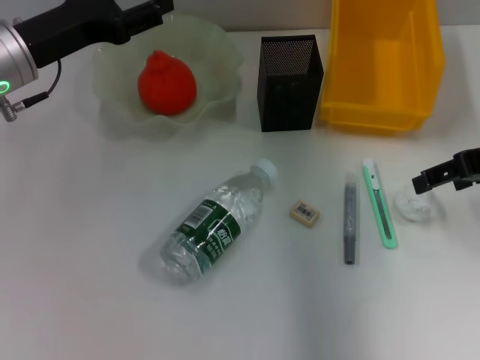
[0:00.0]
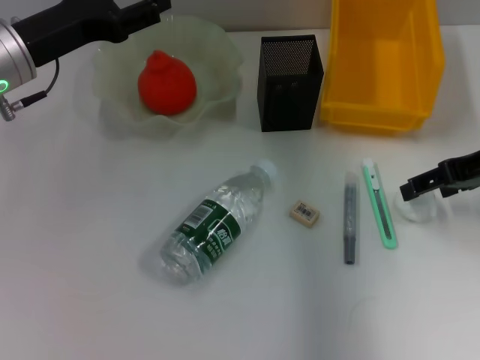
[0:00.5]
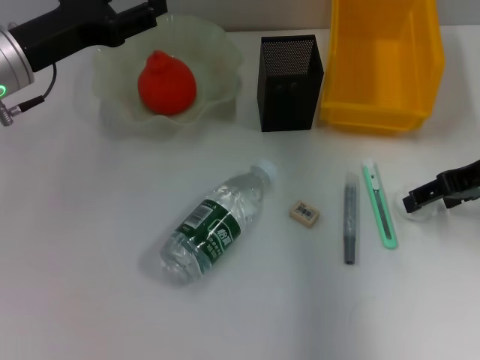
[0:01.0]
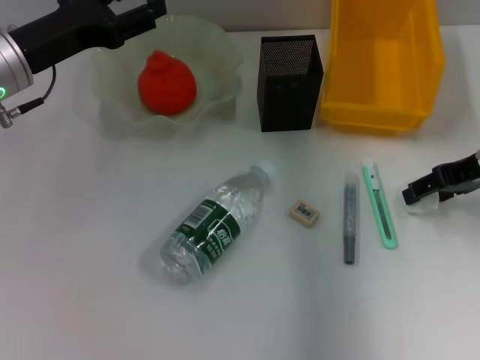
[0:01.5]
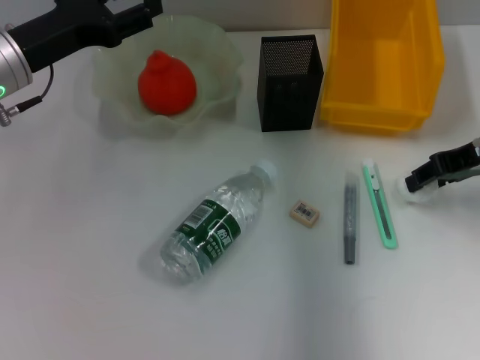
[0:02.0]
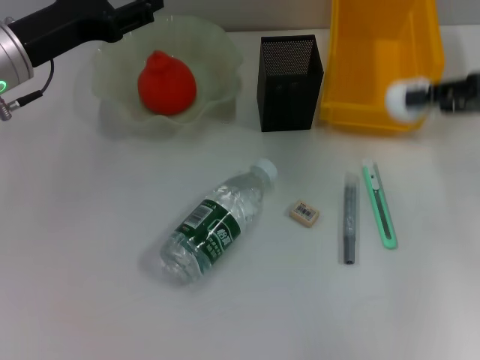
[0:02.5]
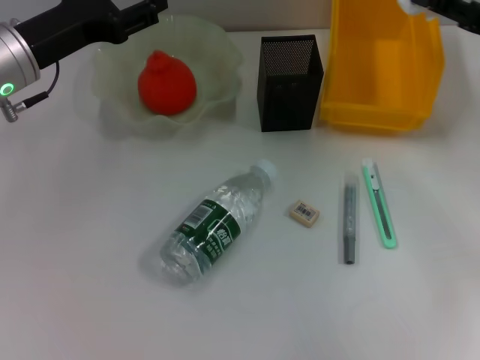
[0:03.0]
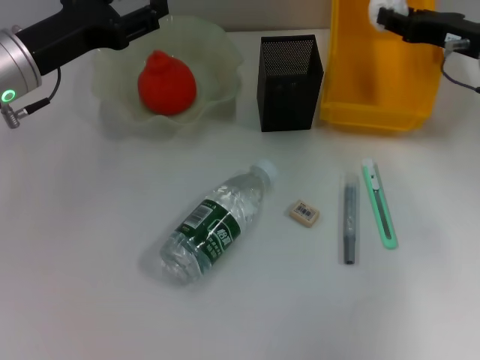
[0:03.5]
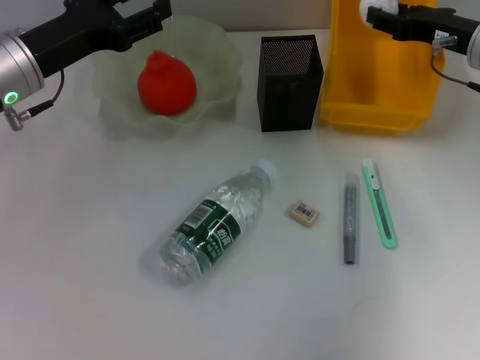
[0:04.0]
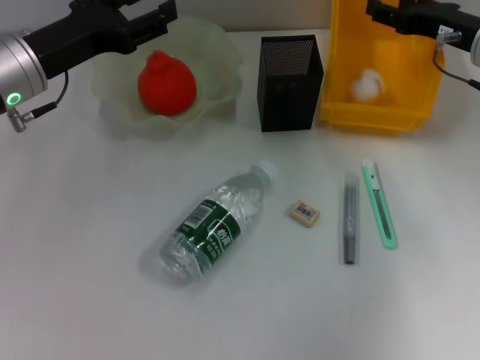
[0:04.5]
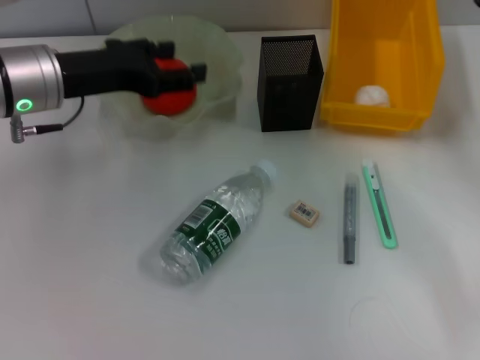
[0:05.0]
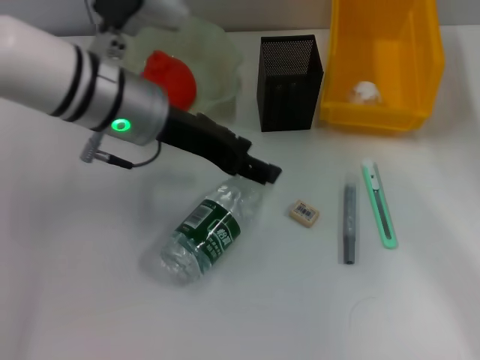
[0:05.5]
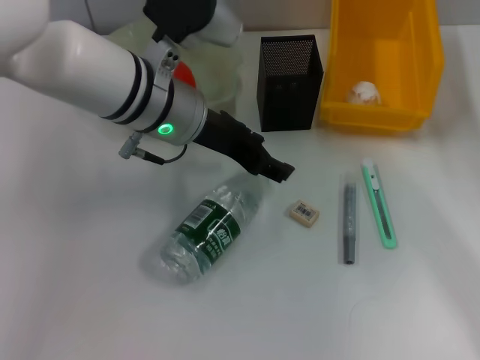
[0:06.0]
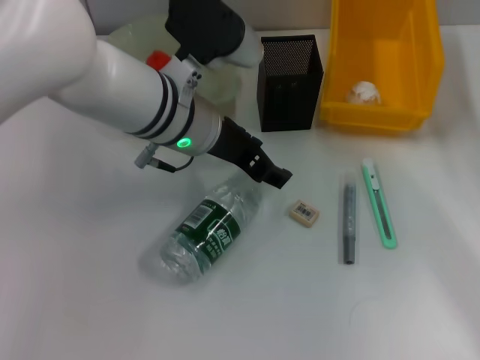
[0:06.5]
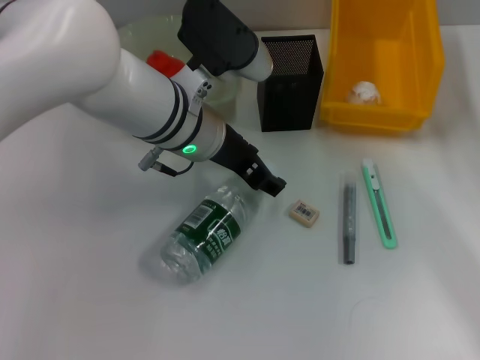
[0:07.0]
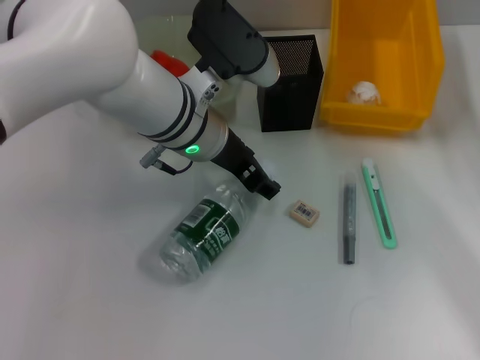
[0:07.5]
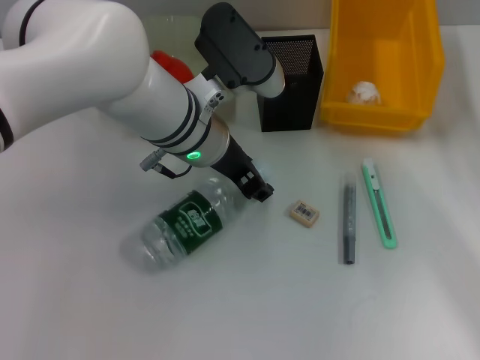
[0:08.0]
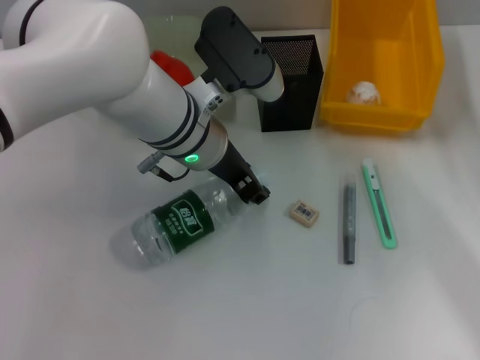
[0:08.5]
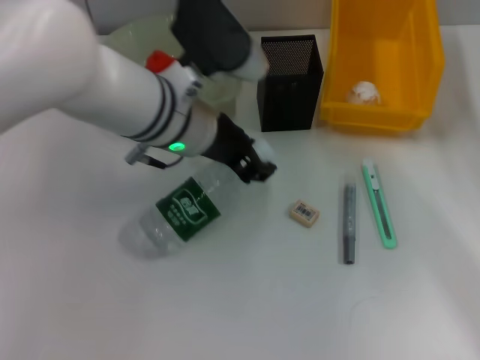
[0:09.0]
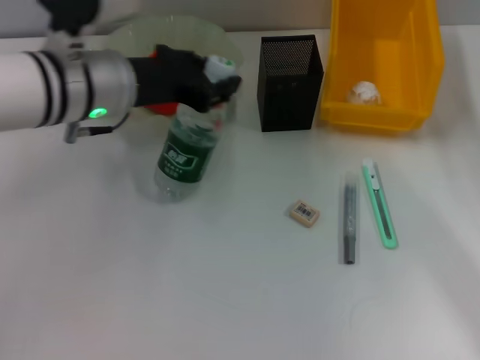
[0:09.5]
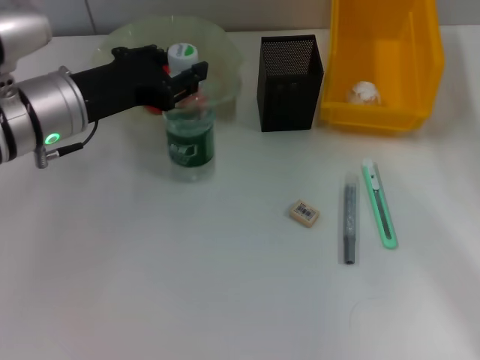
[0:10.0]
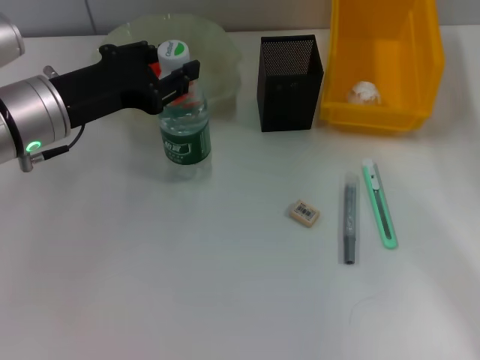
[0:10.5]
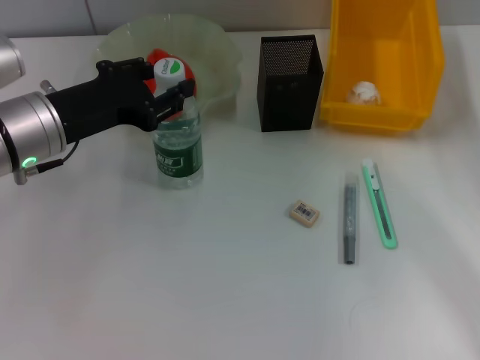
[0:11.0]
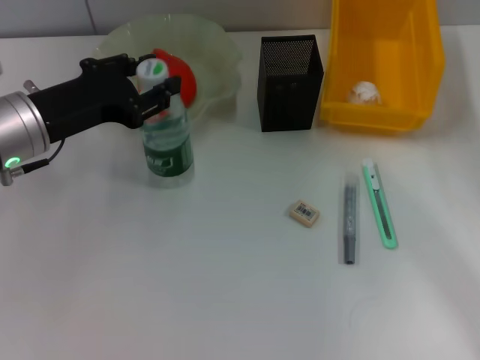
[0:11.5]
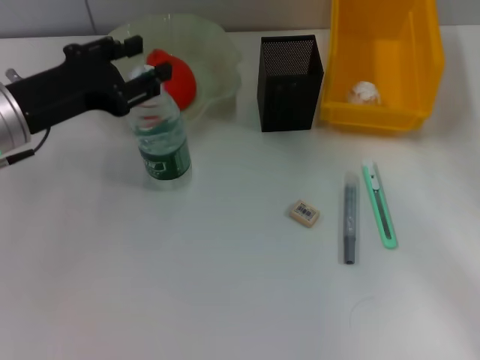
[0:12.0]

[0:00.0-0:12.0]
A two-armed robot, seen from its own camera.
Step, 0:02.0 to 0:04.0: Place the paper ball into the trash can with the right hand.
Step, 0:04.5 to 0:08.0: Grab the water bottle with the left hand.
Step, 0:09.0 to 0:12.0: Place the water bottle on the table with the left hand.
0:00.0 to 0:02.0: The right gripper closes.
0:02.0 to 0:04.0: The right gripper moves forward, approximately 5 cm.
0:04.0 to 0:06.0: The left gripper moves to the right, about 15 cm, while the right gripper travels backward and to the right by about 15 cm, and opens its fingers.
0:06.0 to 0:08.0: There are only small adjustments of the grippers.
0:08.0 to 0:10.0: The left gripper heads to the left, covering approximately 15 cm.
0:10.0 to 0:12.0: The grippers move only a little.

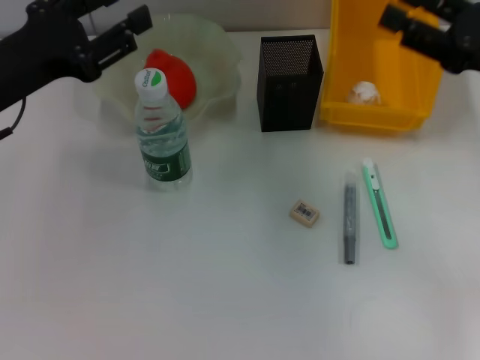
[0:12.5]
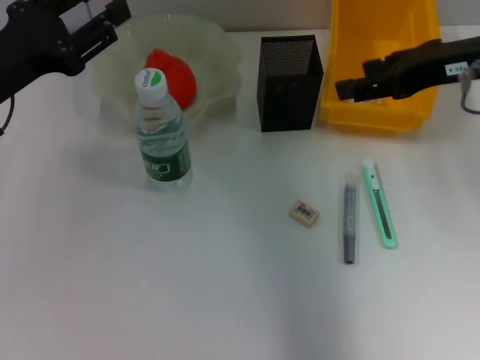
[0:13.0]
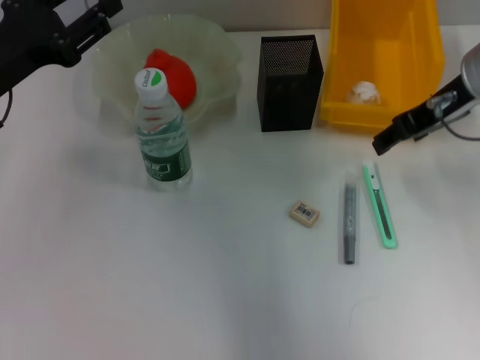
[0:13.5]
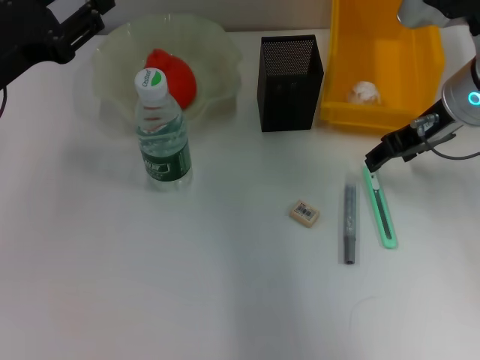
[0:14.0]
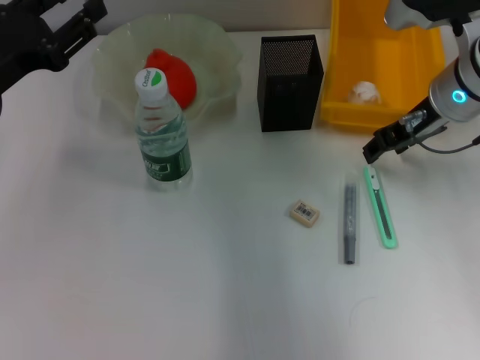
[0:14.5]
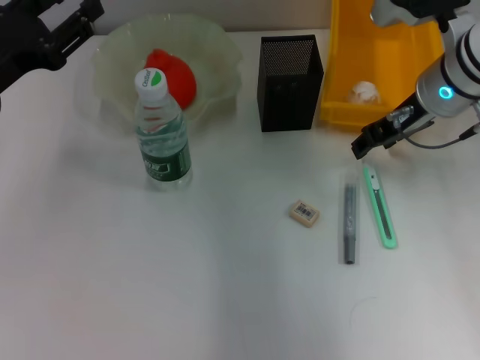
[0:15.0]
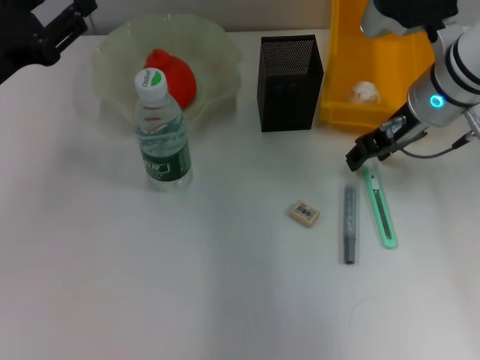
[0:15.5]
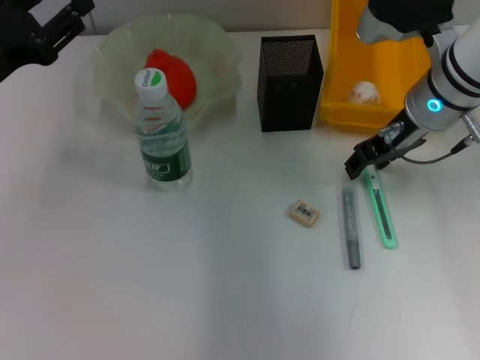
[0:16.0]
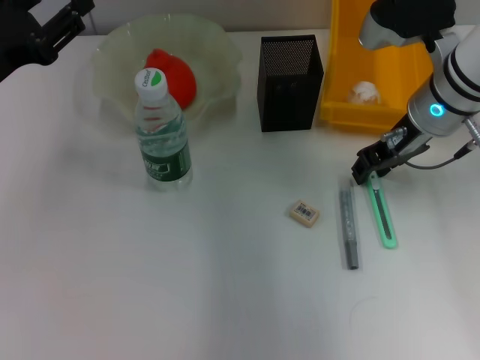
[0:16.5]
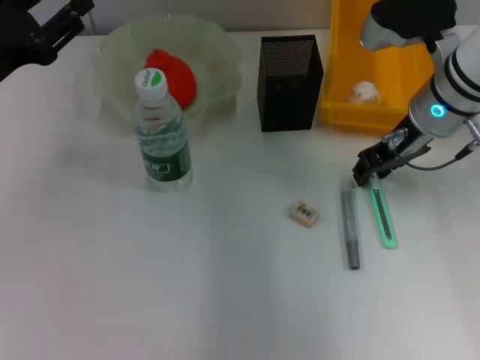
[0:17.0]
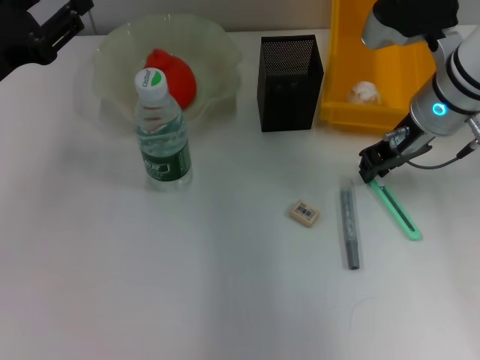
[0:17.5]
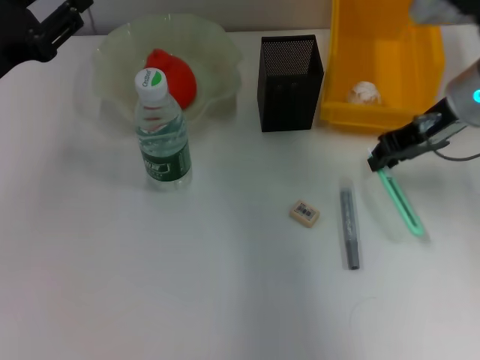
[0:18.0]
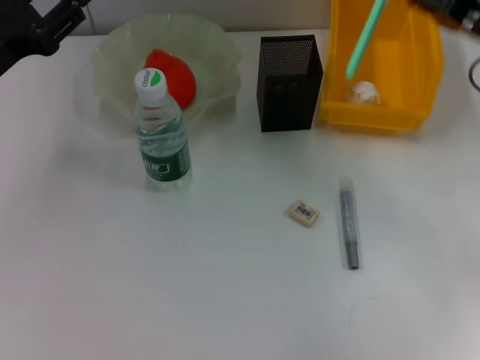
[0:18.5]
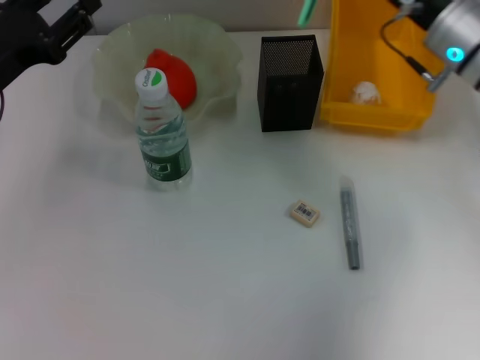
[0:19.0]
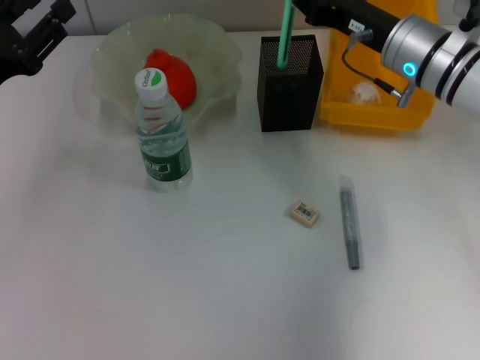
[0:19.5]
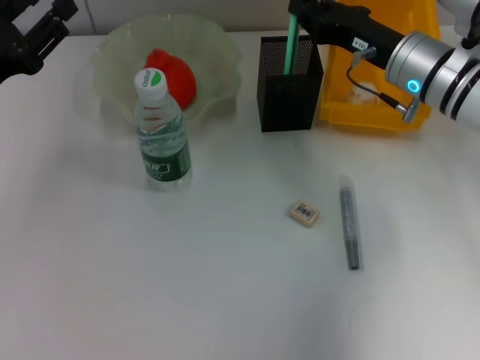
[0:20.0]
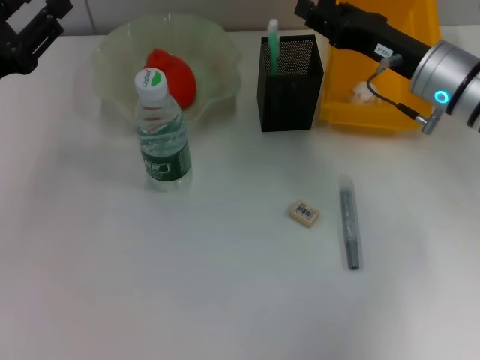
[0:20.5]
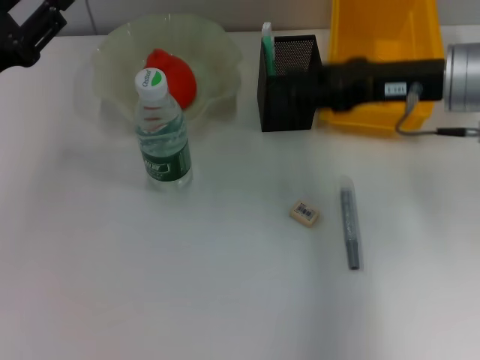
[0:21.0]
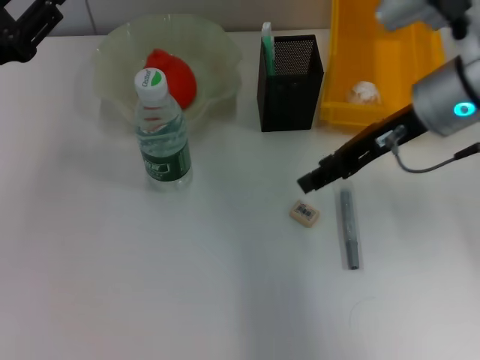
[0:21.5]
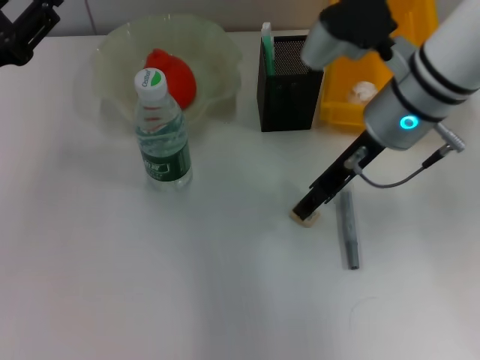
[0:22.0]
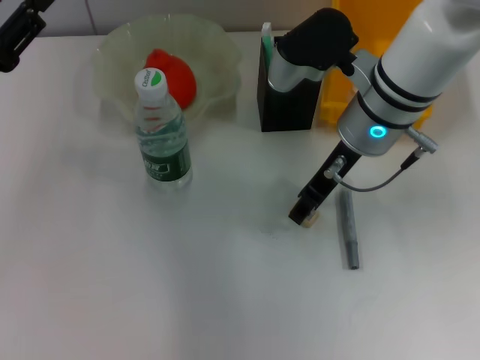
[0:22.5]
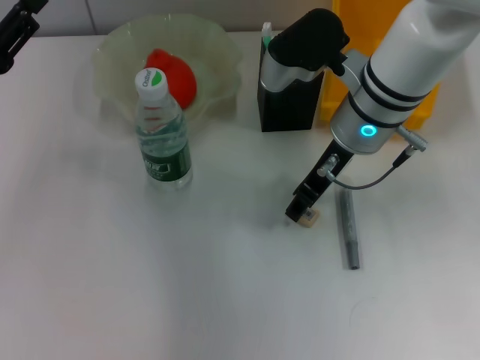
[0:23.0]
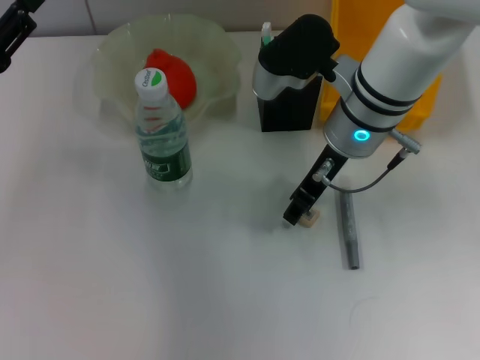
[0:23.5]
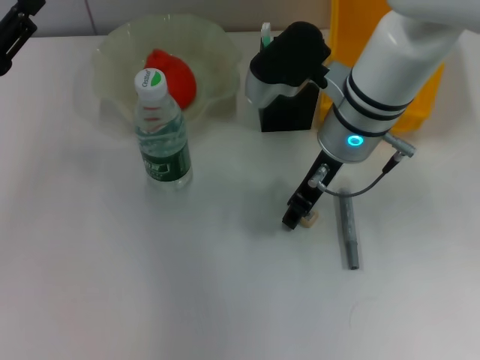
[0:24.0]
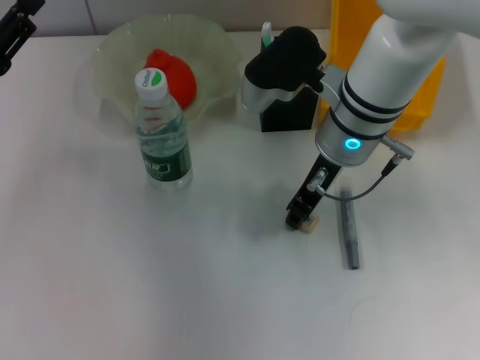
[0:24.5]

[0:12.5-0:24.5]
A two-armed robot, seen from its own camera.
Step, 0:12.5 to 0:17.0: Grab the blue utility knife with the right hand.
Step, 0:17.5 to 0:20.5: Place the blue utility knife into the pen holder with the right hand.
Step, 0:21.0 to 0:24.5: Grab the eraser with the right hand.
0:12.5 to 0:14.5: The right gripper goes about 10 cm to the left and forward.
0:14.5 to 0:16.5: The grippers stay close to where they were, moving slightly.
0:16.5 to 0:18.5: The right gripper heads to the right, covering roughly 10 cm, and closes up.
0:18.5 to 0:20.5: The right gripper is displaced to the left by some 5 cm.
0:20.5 to 0:22.5: The right gripper goes some 10 cm to the left.
0:22.5 to 0:24.5: The grippers move only a little.

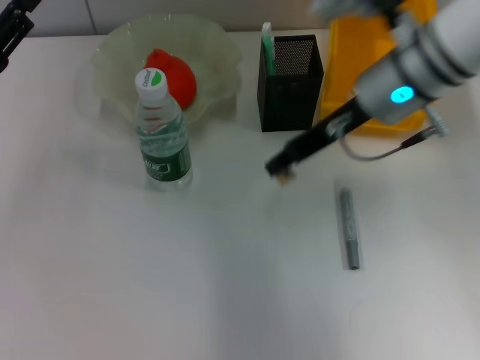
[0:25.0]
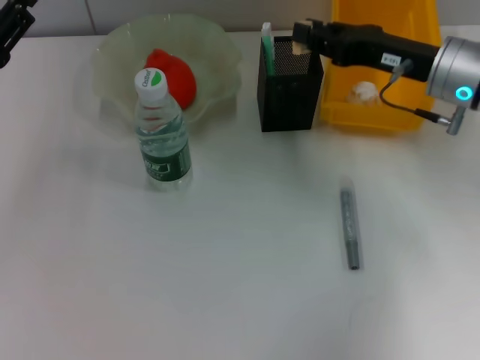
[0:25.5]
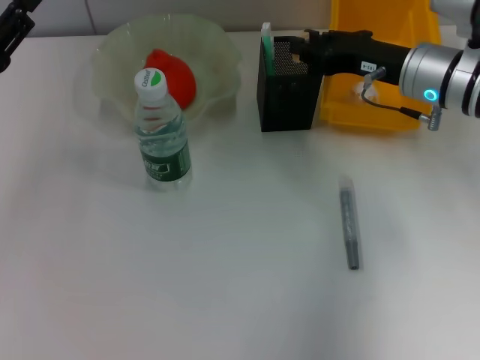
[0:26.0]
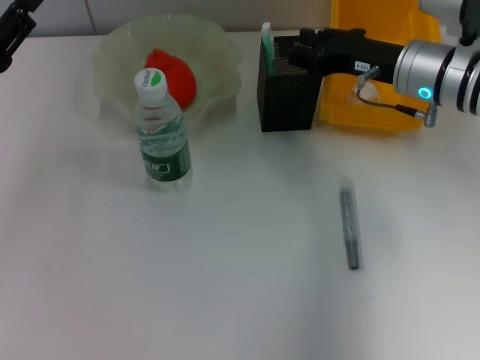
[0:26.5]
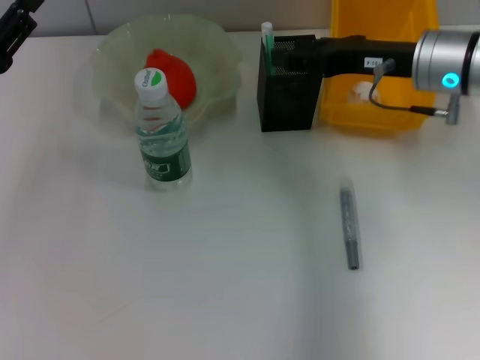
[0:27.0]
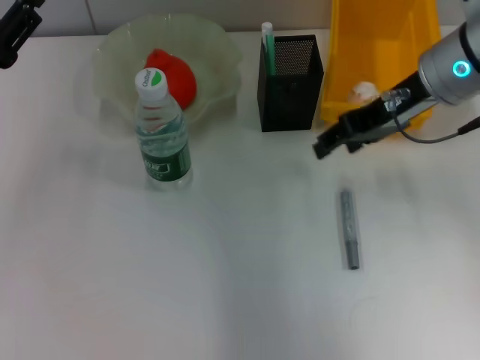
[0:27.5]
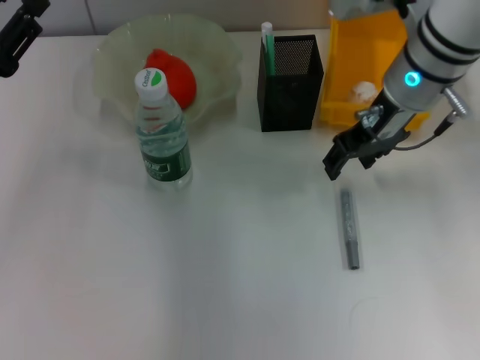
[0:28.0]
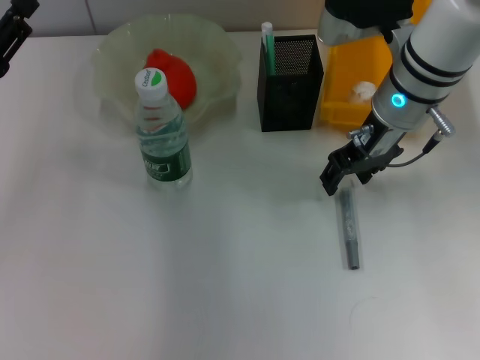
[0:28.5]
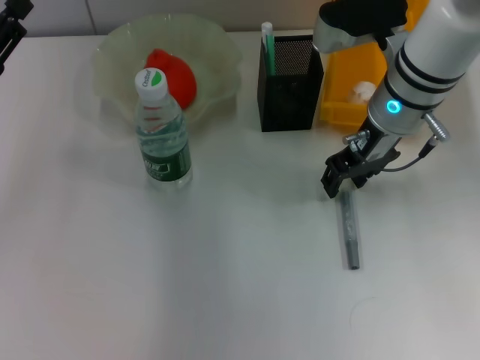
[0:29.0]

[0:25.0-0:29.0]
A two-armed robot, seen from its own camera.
Step, 0:25.0 to 0:26.5: Put the eraser into the pen holder with the right hand.
0:25.0 to 0:27.0: The right gripper heads to the right, covering about 5 cm, and opens its fingers.
0:27.0 to 0:29.0: The right gripper is displaced to the left by approximately 5 cm.
